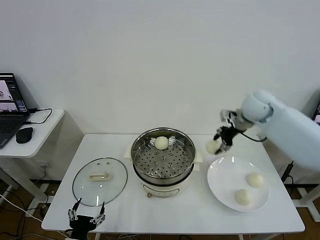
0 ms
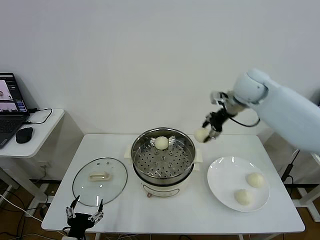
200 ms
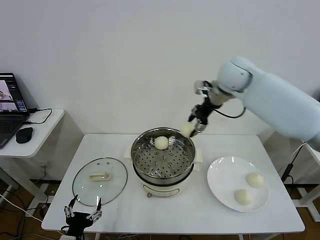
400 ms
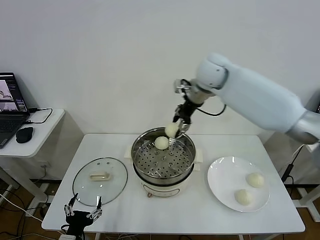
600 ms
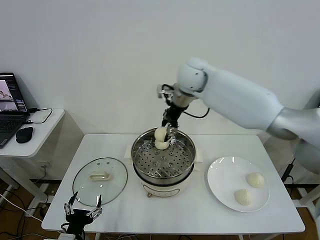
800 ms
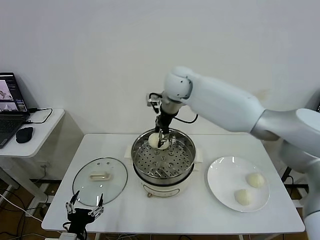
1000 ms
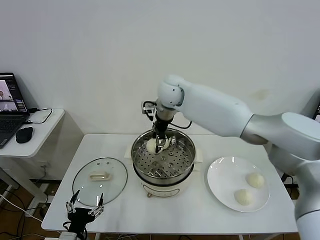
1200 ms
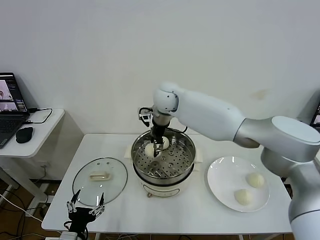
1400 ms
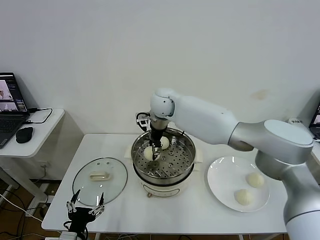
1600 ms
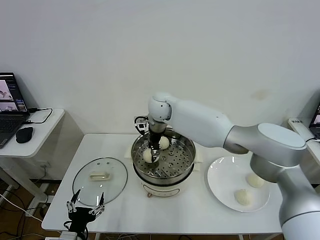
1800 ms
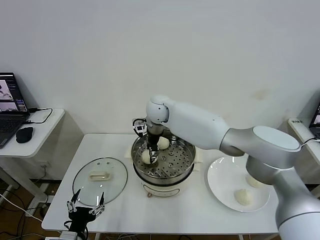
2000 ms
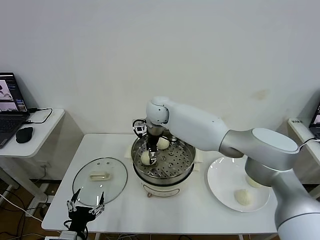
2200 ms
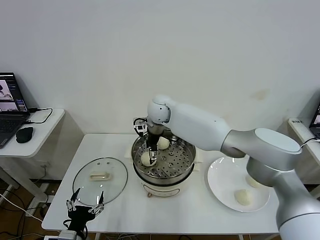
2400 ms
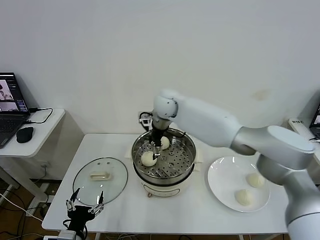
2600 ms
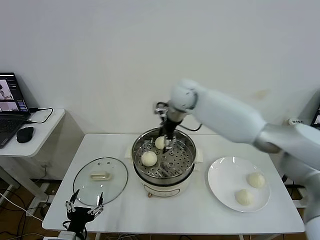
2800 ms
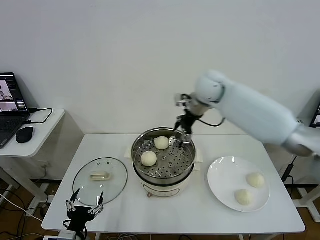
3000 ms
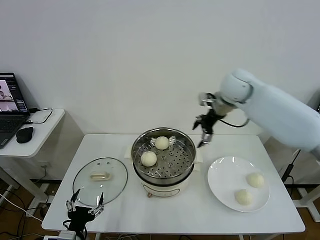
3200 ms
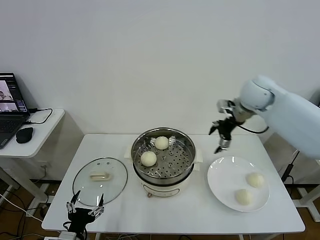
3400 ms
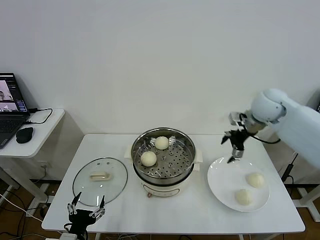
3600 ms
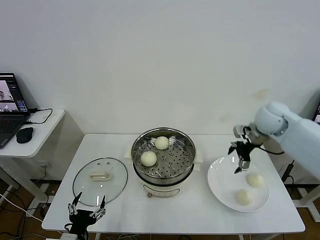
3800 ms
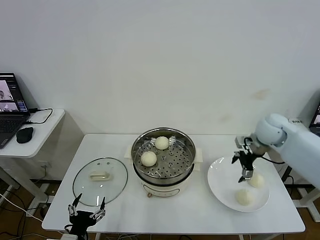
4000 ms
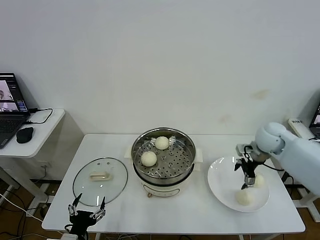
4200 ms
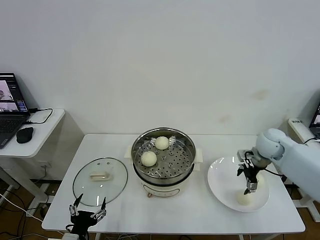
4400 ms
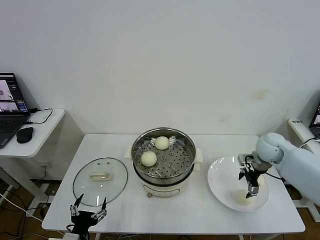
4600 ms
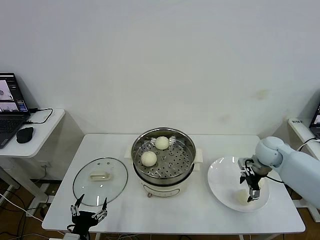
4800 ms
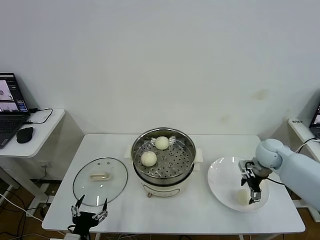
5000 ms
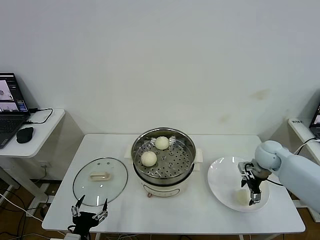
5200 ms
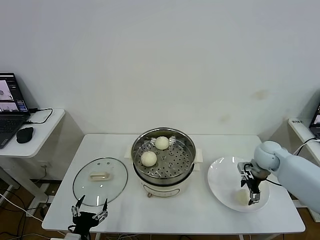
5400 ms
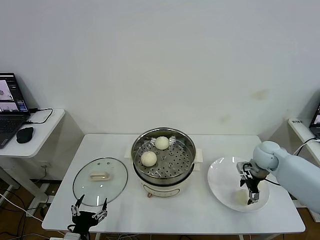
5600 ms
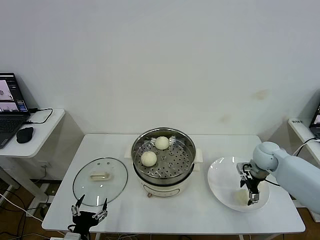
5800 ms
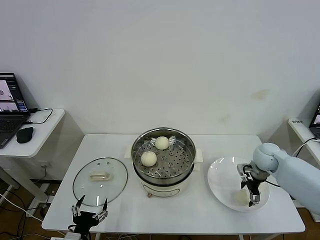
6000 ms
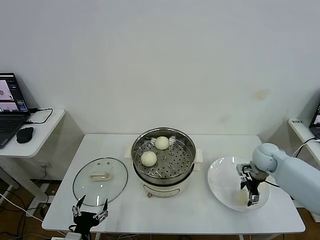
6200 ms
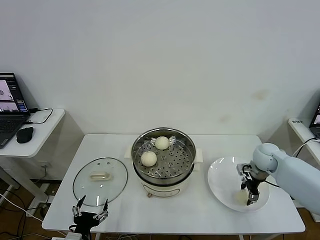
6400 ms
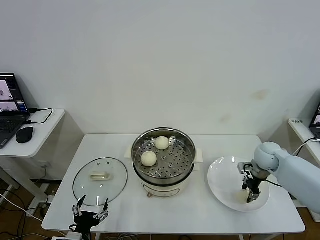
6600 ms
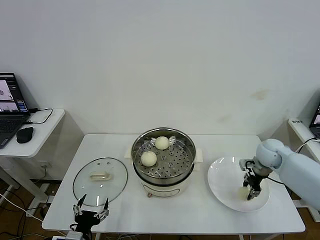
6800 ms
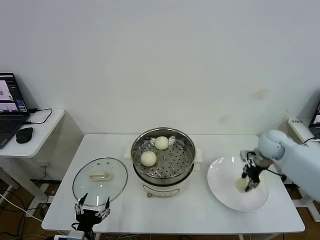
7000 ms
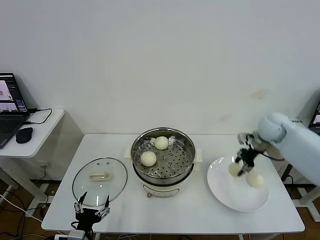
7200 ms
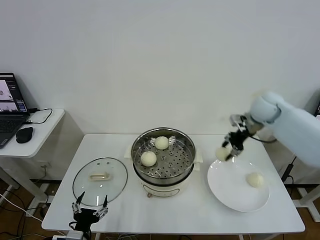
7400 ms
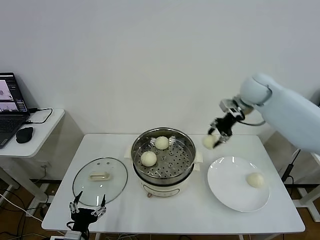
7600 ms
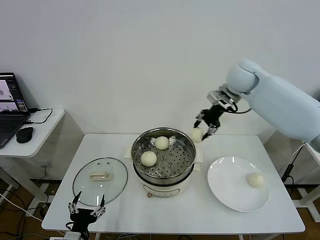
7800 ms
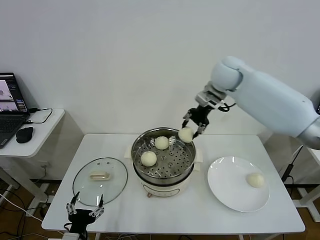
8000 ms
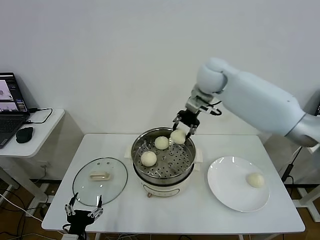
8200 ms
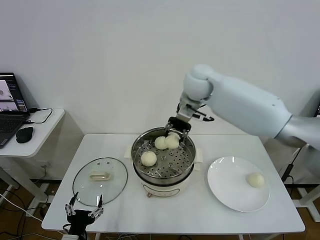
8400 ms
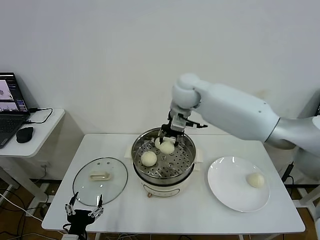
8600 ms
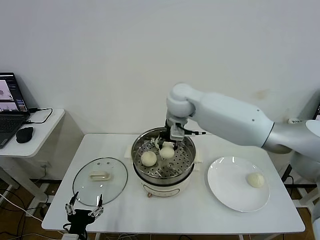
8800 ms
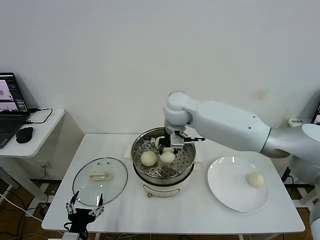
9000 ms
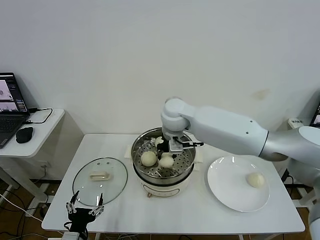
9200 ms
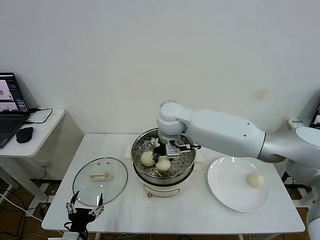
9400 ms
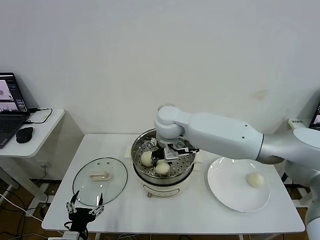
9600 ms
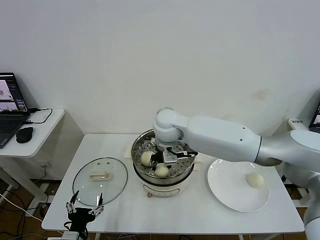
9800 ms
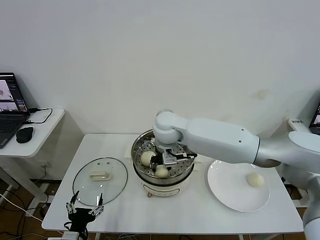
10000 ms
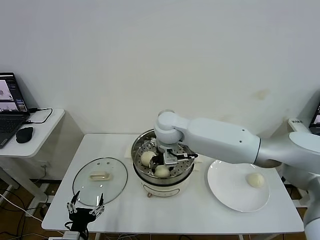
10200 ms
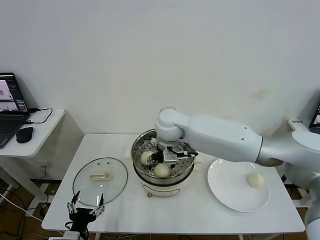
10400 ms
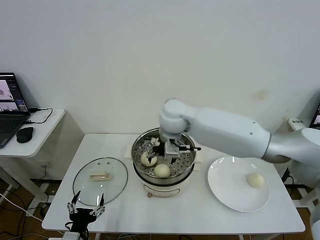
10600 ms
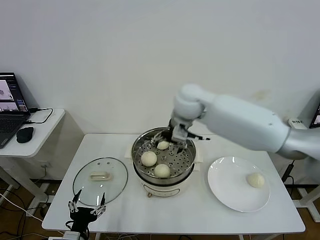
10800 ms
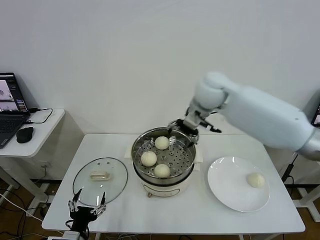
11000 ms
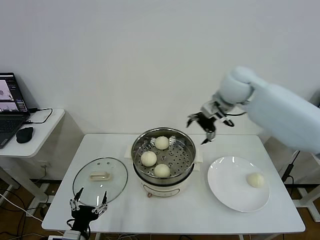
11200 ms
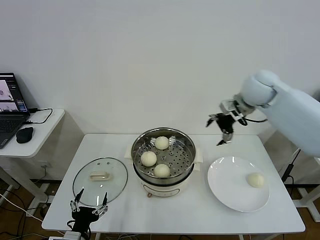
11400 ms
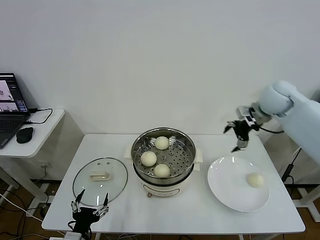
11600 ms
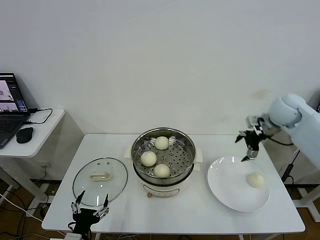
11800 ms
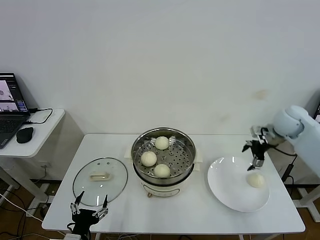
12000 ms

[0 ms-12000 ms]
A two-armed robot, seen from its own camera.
Step, 0 ms to 2400 ms: Place the baozi on the steamer with right gripper.
Step, 2800 ms to 6400 ms: Grasp the baozi in the plate with right gripper.
Step, 6600 ms to 10400 ms: Place the baozi on the steamer with right gripper.
0 ms to 1600 ms: The right gripper moves to the left, approximately 30 cm.
1600 ms to 3000 ms: The right gripper travels to the right and upward by some 20 cm, and opens up.
3000 ms to 4400 ms: The right gripper is displaced to the right, downward and backward by about 30 cm.
4400 ms to 6000 ms: The right gripper shifts approximately 5 cm downward.
6000 ms to 7600 ms: The right gripper shifts some 25 cm upward, forward and to the left, and closes up.
7600 ms to 9000 ms: The right gripper travels to the left by some 25 cm.
9000 ms to 10400 ms: The right gripper opens up.
10400 ms to 12000 ms: The right gripper travels to the right by roughly 40 cm.

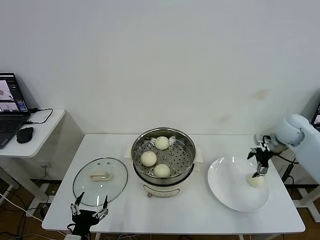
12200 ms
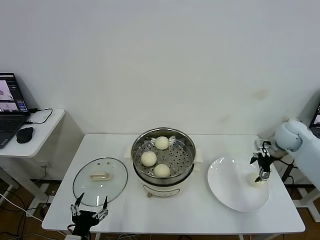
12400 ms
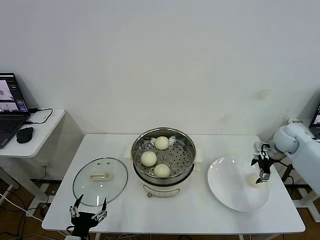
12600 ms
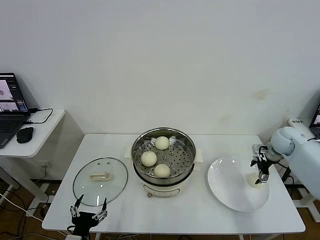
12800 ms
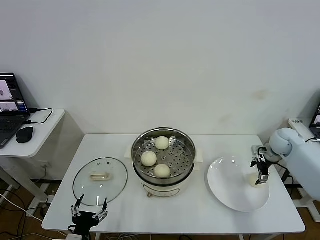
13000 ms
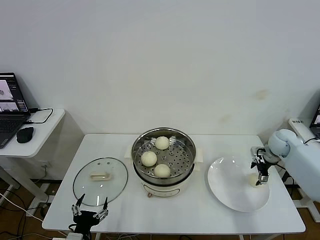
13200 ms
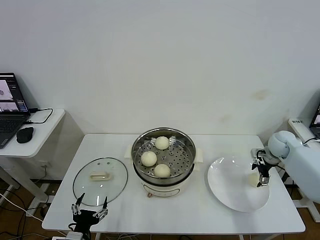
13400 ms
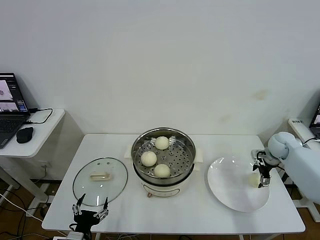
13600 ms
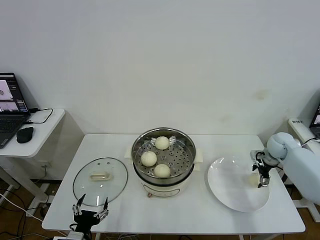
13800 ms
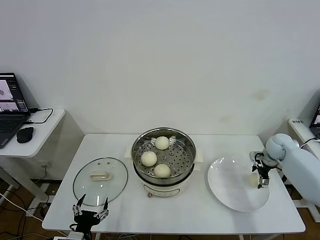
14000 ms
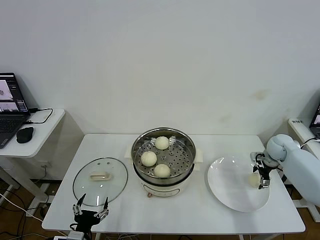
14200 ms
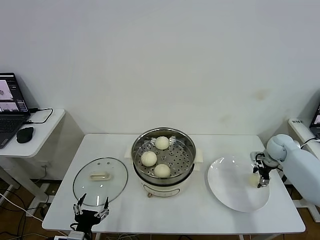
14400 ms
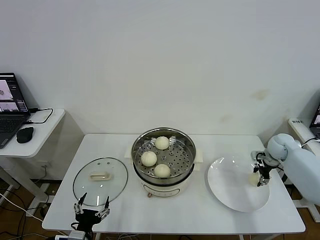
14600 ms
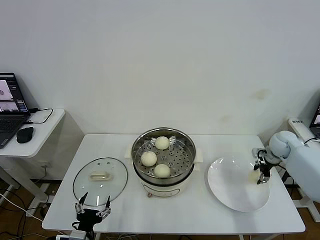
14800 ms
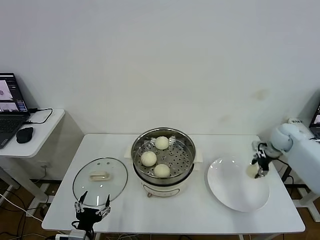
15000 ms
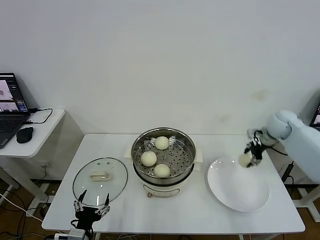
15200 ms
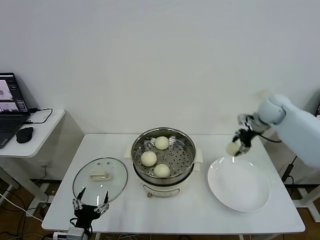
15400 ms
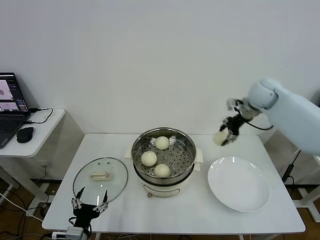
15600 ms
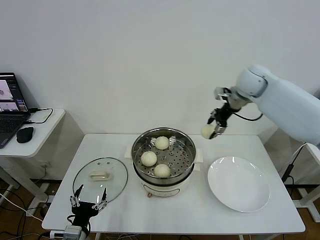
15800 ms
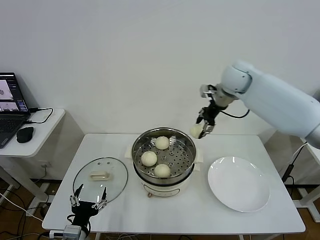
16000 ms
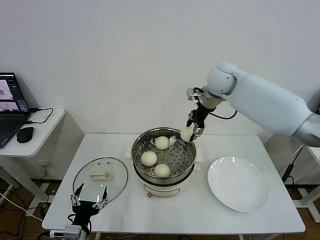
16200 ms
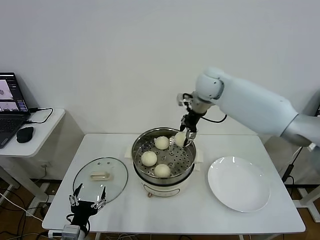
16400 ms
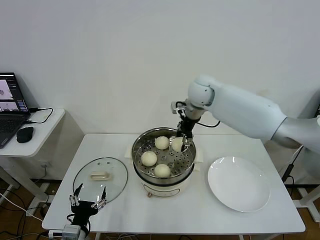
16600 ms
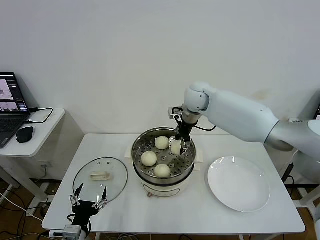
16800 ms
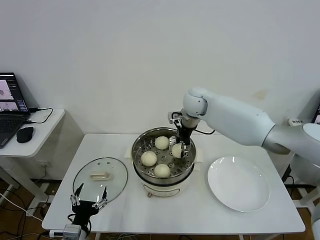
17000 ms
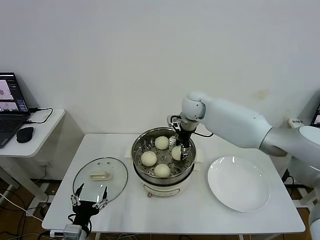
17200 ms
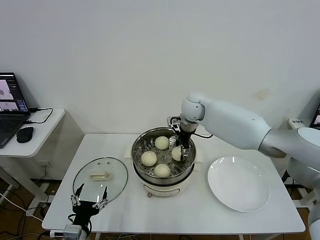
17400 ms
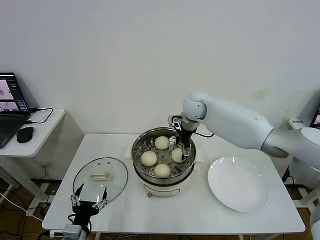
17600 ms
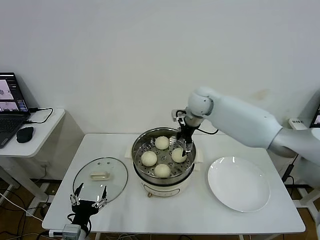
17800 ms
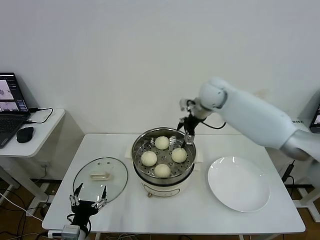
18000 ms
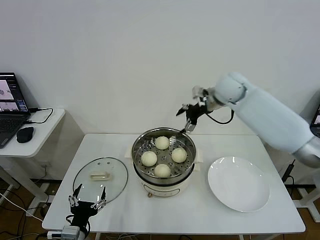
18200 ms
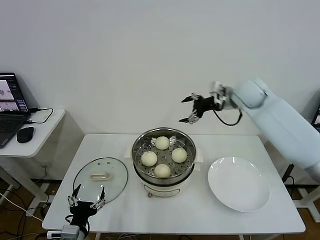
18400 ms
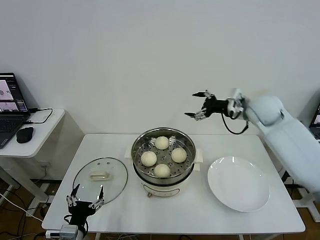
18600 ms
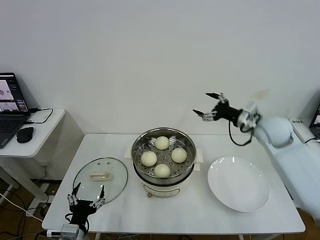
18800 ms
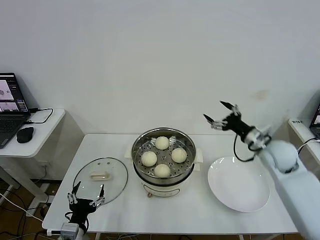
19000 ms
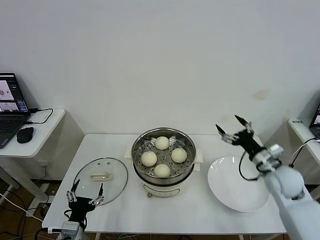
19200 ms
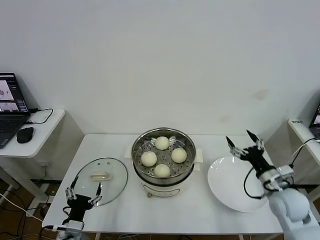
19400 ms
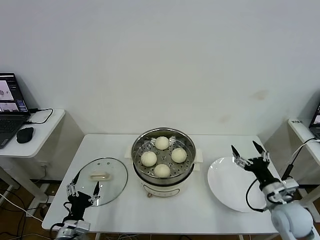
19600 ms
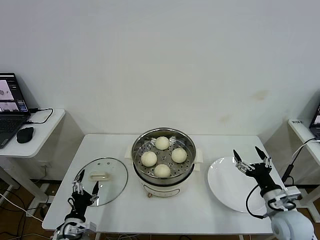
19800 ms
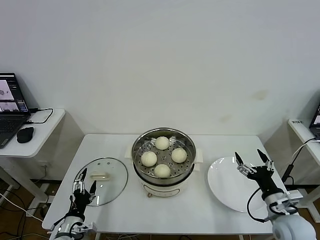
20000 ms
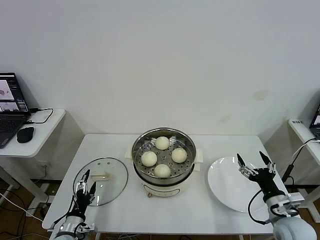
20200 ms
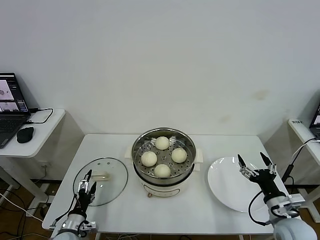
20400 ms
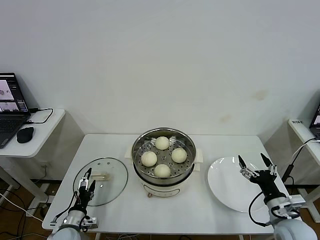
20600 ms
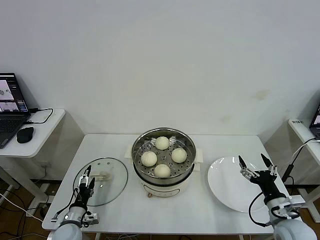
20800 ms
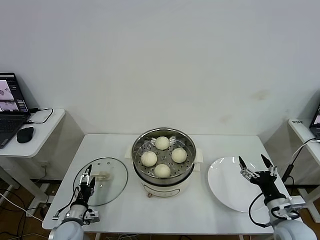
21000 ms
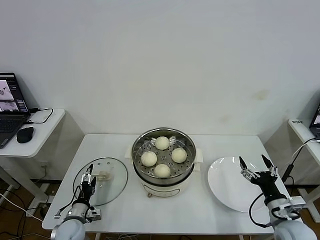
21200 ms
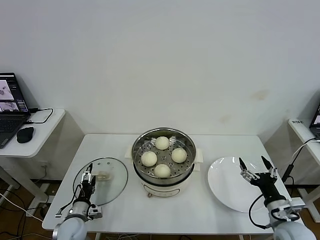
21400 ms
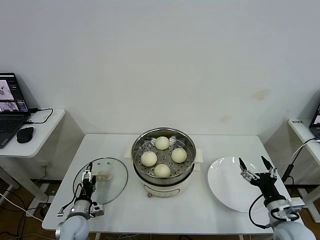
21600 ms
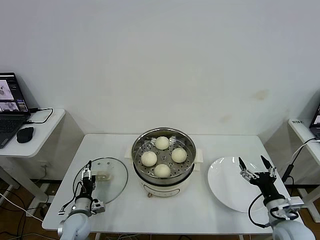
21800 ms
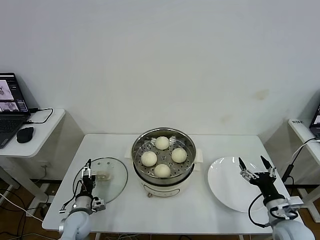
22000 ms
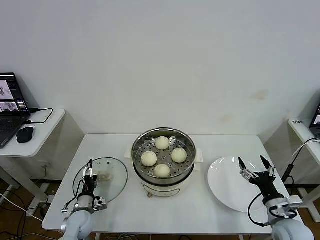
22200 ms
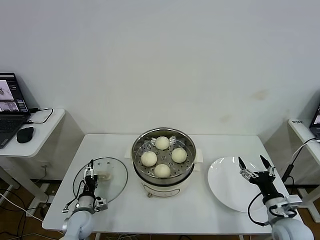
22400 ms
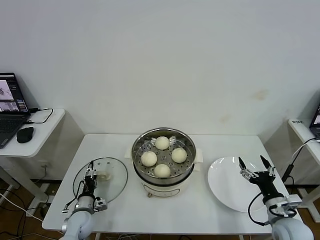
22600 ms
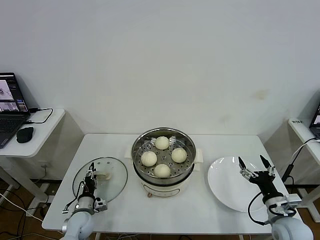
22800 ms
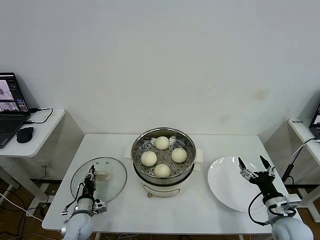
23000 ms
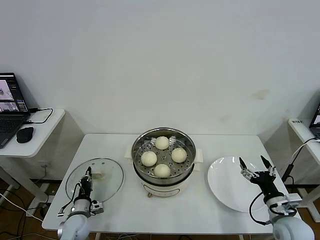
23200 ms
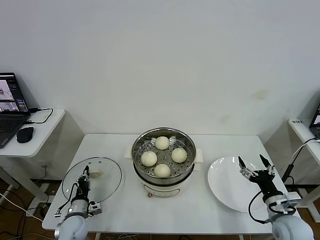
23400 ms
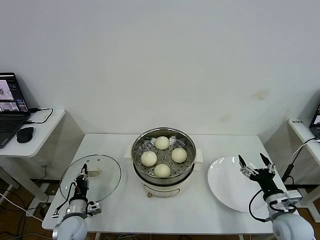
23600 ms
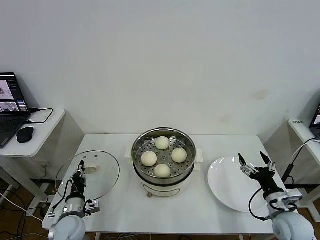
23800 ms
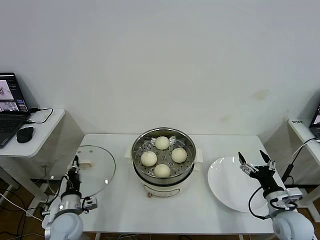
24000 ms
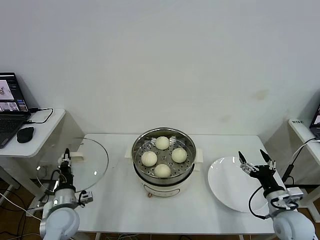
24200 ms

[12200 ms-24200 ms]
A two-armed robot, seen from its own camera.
Step, 12200 ms to 14600 ms: Grasp the baozi in the plate with right gripper.
Step, 14800 ms to 17800 ms: Place the baozi on the steamer with right gripper.
Step, 18000 ms to 23200 ms: Grasp the pot lid with left gripper.
12200 ms to 13800 ms: The right gripper moves downward, some 10 cm.
13800 ms to 15200 ms: The right gripper shifts roughly 10 cm upward, and closes.
15200 ms to 16600 ms: The right gripper goes roughly 30 cm to the left.
16600 ms to 18200 ms: The right gripper moves to the right, approximately 10 cm, and opens.
18200 ms to 19800 ms: The left gripper ends up some 5 cm from where it was. Meanwhile the right gripper travels backward, downward and to the right by roughly 40 cm.
19800 ms to 21200 ms: The left gripper moves forward and downward, roughly 10 cm.
21200 ms to 22600 ms: The grippers make only small movements.
22600 ms to 24200 ms: The left gripper travels upward by some 10 cm, and closes up.
